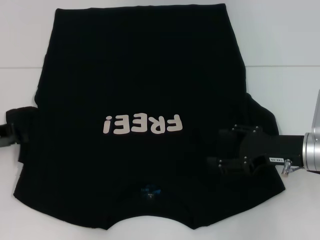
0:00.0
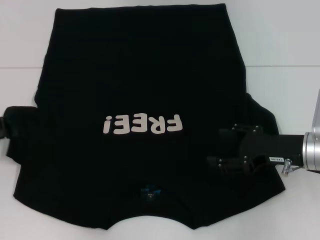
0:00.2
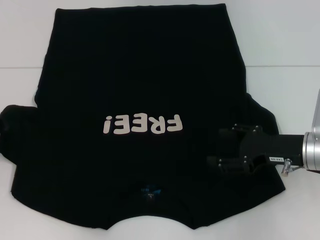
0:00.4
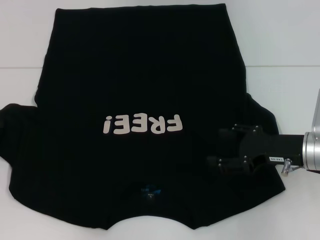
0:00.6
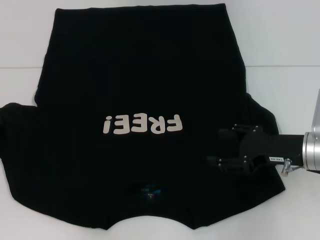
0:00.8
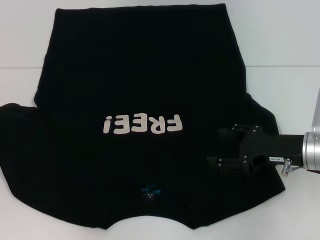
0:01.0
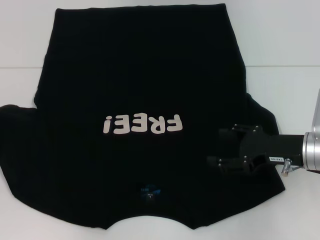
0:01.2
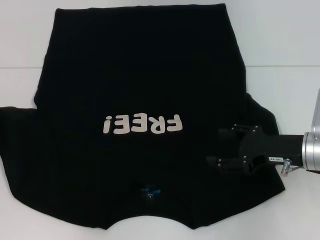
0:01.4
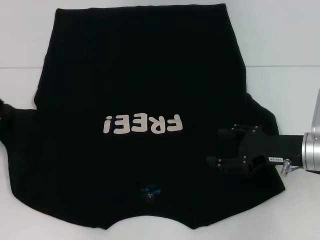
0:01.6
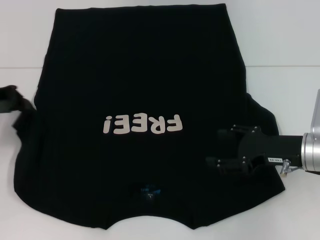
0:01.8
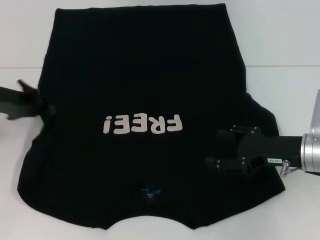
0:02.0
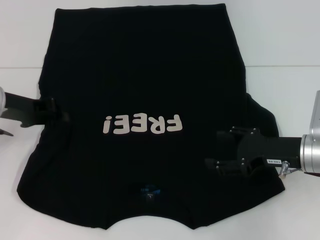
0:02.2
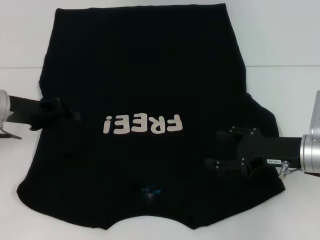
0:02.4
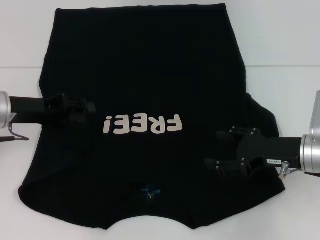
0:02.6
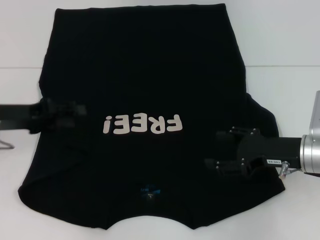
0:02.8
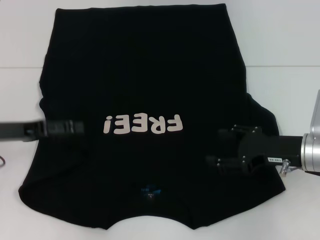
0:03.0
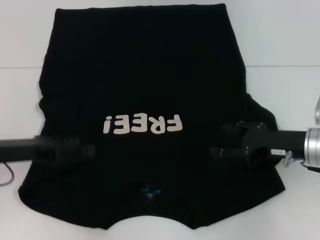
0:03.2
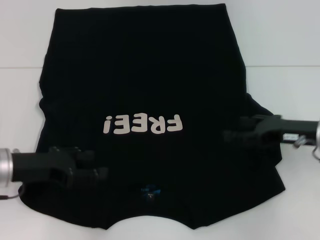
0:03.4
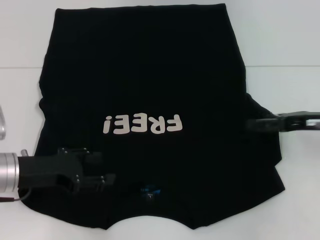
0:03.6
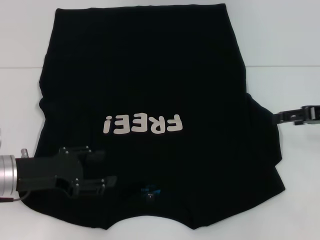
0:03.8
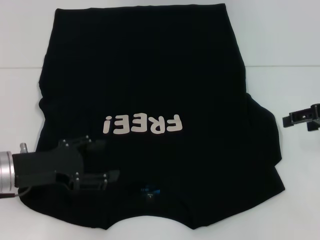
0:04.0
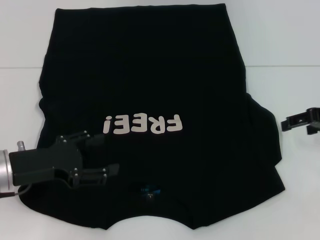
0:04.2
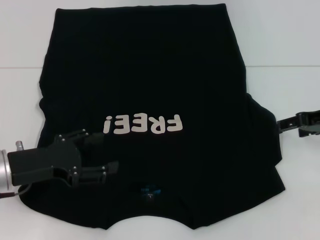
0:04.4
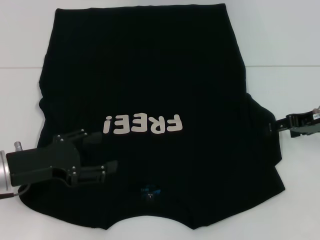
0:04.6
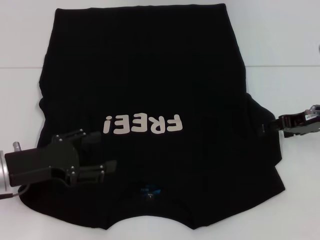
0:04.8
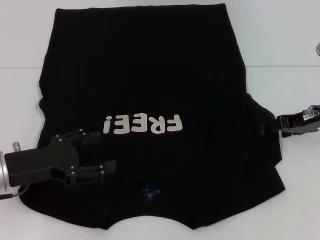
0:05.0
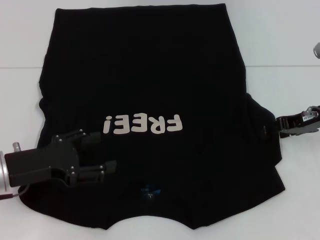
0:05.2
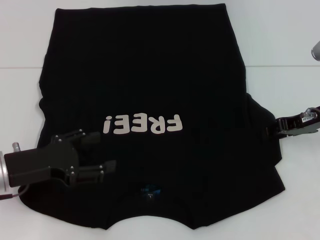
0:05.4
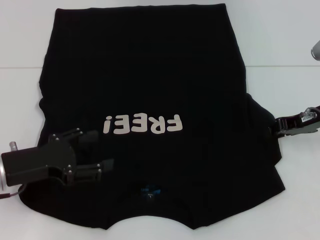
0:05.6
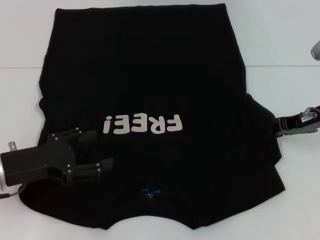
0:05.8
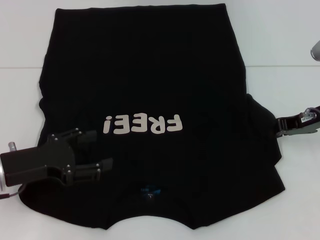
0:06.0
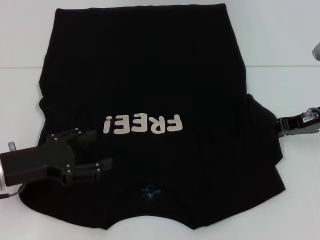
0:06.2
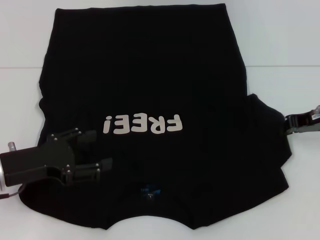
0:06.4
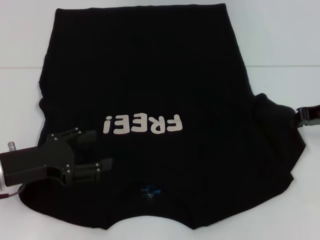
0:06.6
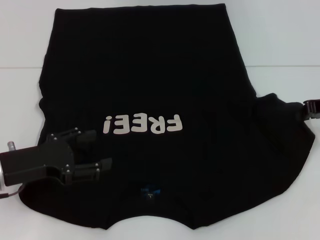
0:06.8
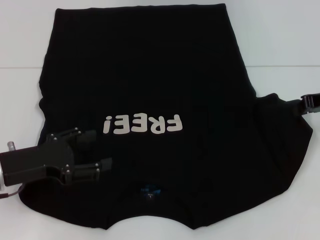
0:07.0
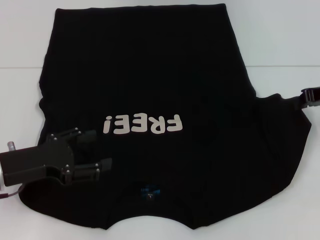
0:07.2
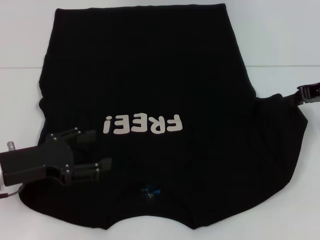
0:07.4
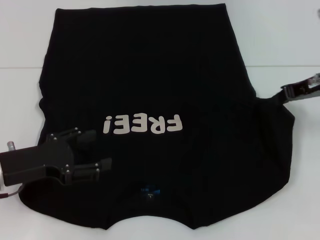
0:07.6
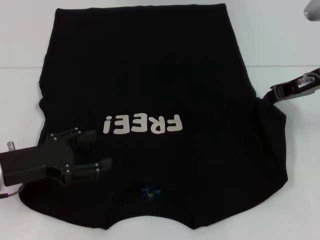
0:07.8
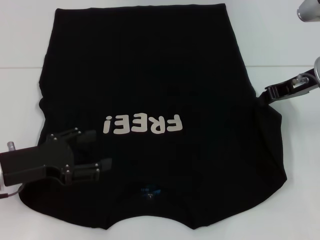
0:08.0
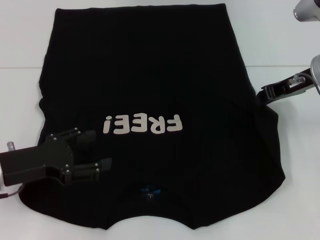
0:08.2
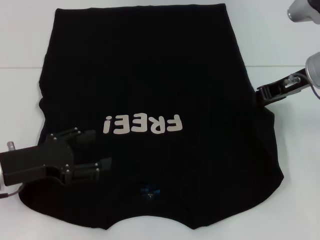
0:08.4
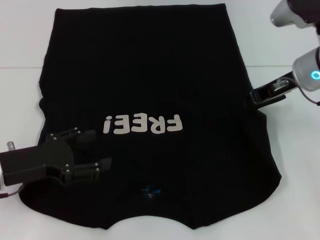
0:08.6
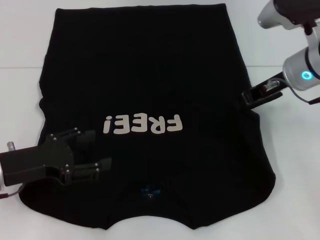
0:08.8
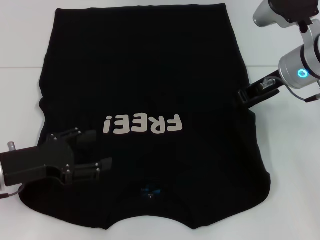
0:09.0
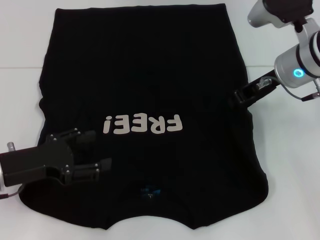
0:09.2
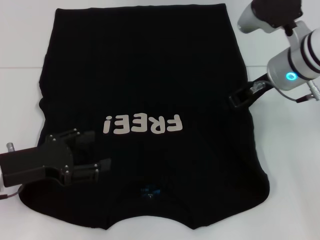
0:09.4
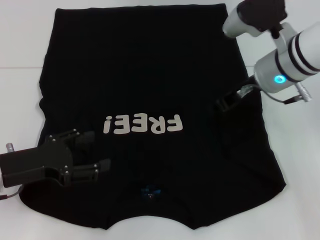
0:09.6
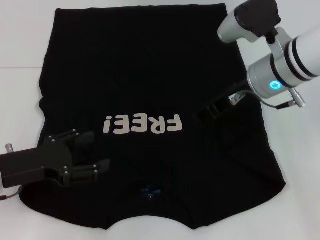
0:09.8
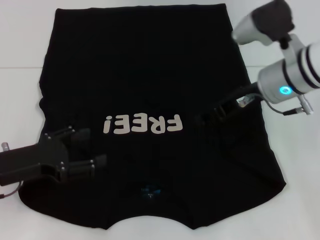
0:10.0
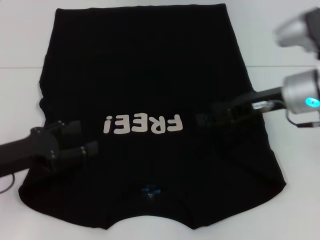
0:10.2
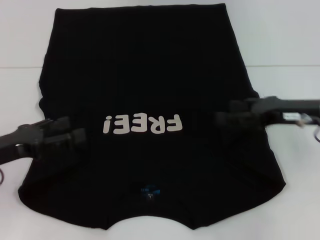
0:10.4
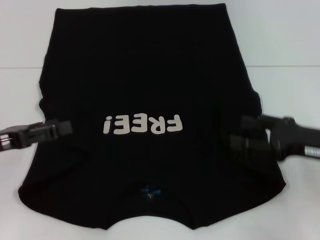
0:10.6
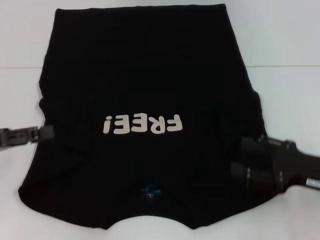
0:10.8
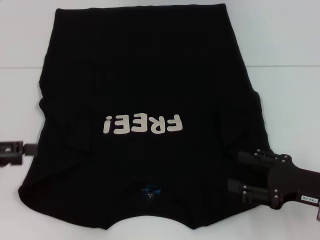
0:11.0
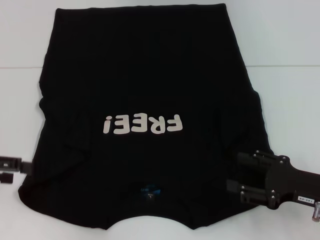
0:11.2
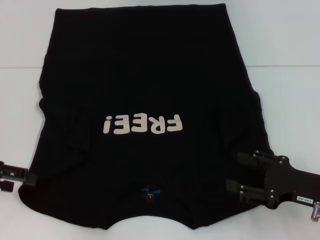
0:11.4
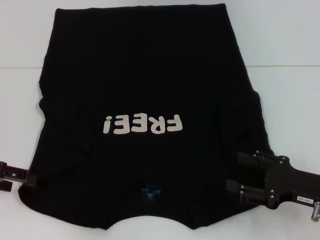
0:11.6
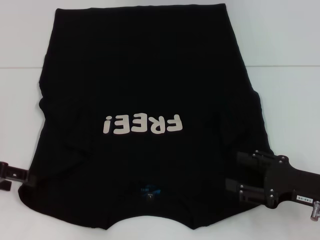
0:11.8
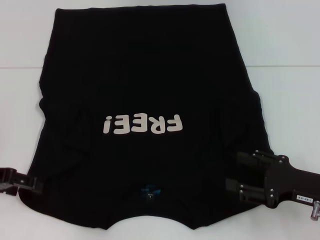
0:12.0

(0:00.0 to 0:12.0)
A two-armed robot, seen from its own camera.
Step, 0:00.0 - 0:05.0: Fold the bottom left sleeve with your left hand.
Step, 0:05.2 - 0:10.4: Fold the bottom right sleeve with your right hand.
0:00.0 - 0:01.6: The left gripper goes about 5 cm upward.
0:01.6 - 0:03.0: The left gripper heads to the right, covering roughly 5 cm, and opens.
0:03.0 - 0:04.4: The left gripper heads backward, covering roughly 5 cm; the right gripper moves to the right, upward and forward, roughly 10 cm.
0:04.4 - 0:06.0: The right gripper closes.
0:06.0 - 0:07.6: The right gripper is displaced upward by some 5 cm.
0:07.6 - 0:09.0: The right gripper shifts approximately 10 cm to the left.
0:09.0 - 0:10.4: The right gripper goes approximately 10 cm backward and to the right, and opens its fingers.
0:10.4 - 0:12.0: The left gripper moves roughly 5 cm, while the right gripper heads backward and downward, covering approximately 10 cm.

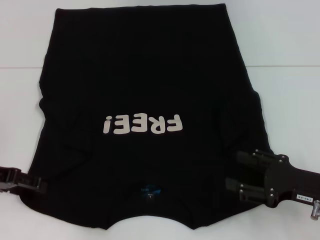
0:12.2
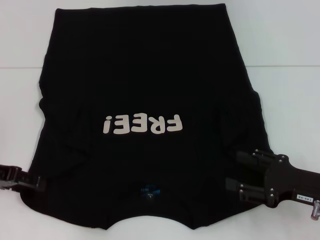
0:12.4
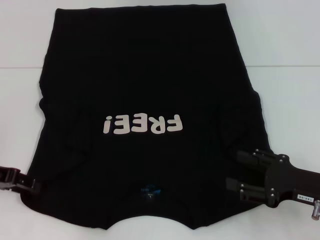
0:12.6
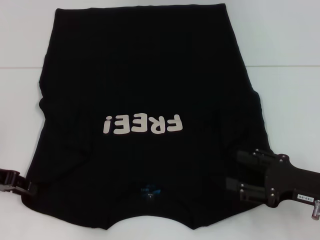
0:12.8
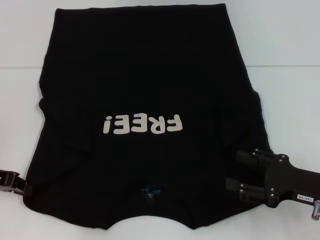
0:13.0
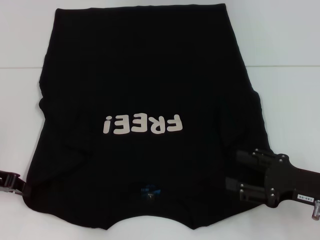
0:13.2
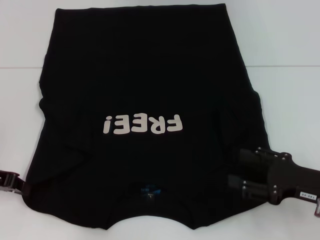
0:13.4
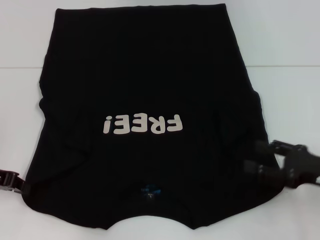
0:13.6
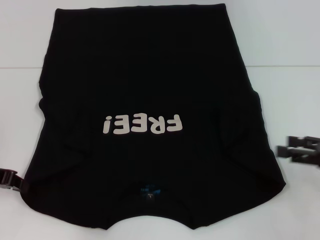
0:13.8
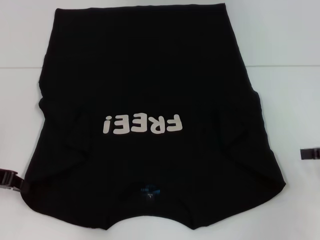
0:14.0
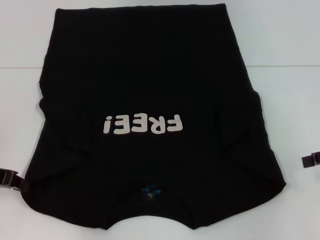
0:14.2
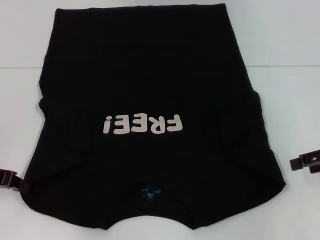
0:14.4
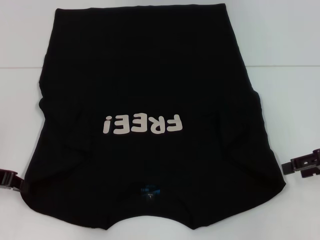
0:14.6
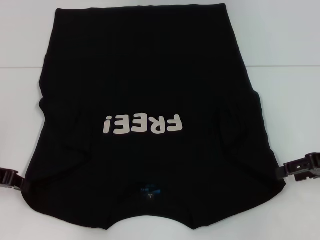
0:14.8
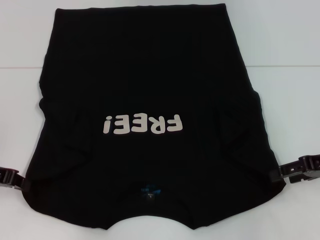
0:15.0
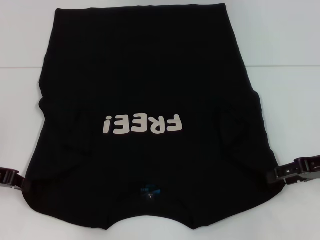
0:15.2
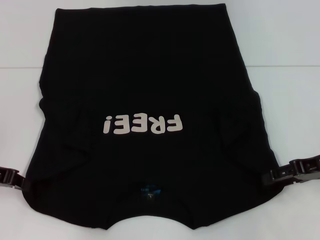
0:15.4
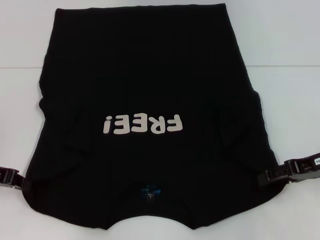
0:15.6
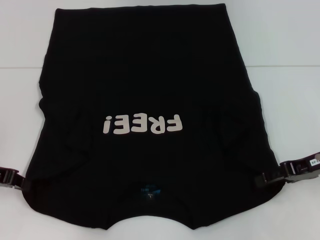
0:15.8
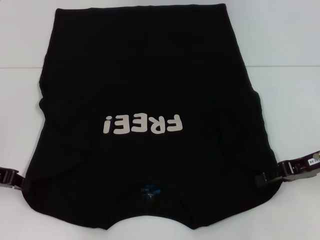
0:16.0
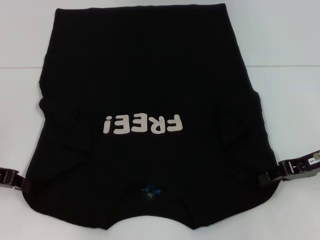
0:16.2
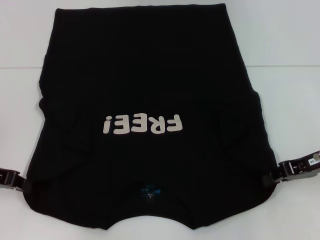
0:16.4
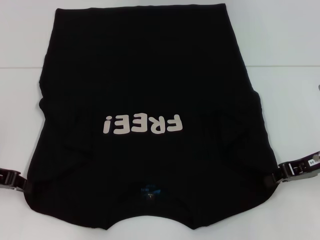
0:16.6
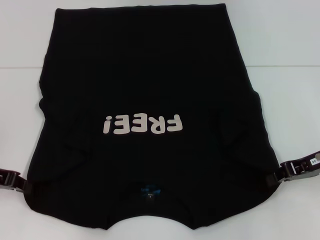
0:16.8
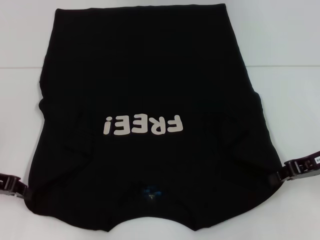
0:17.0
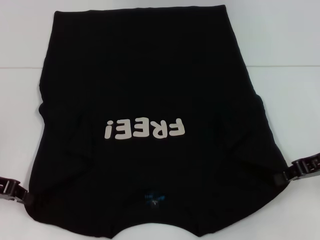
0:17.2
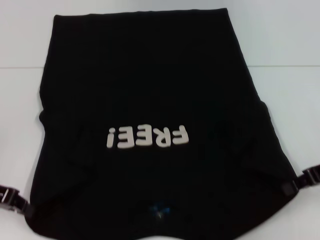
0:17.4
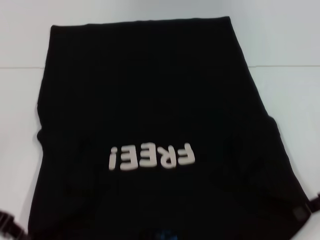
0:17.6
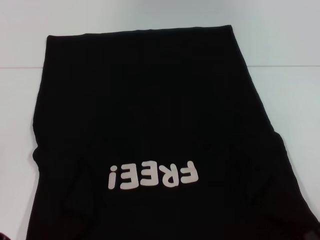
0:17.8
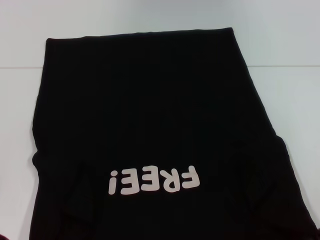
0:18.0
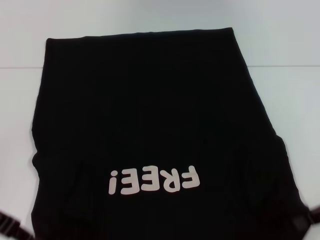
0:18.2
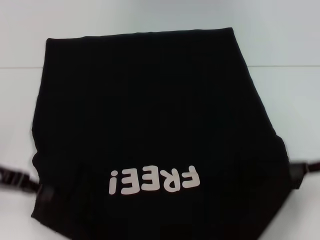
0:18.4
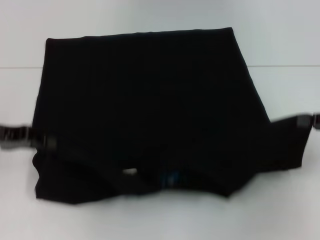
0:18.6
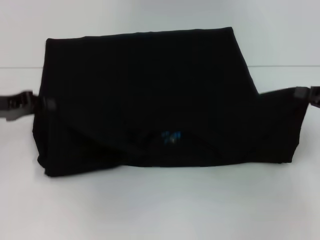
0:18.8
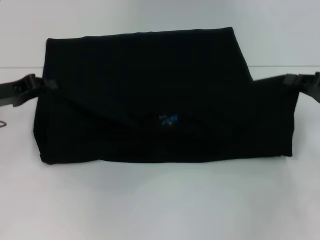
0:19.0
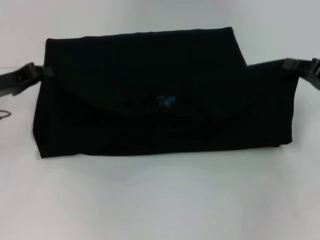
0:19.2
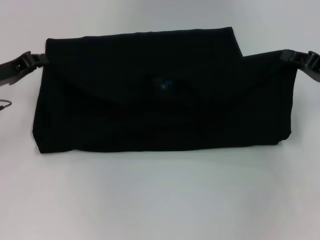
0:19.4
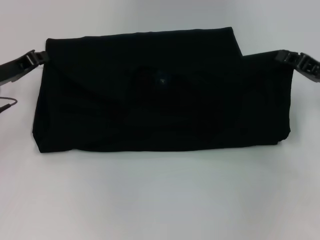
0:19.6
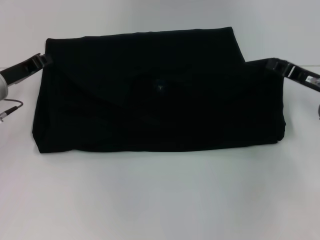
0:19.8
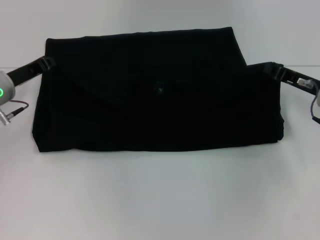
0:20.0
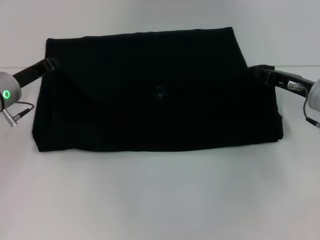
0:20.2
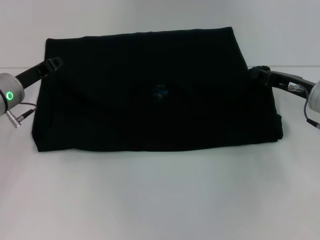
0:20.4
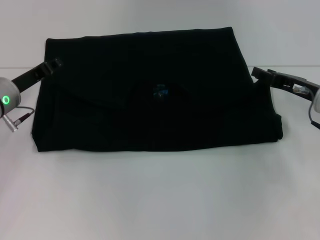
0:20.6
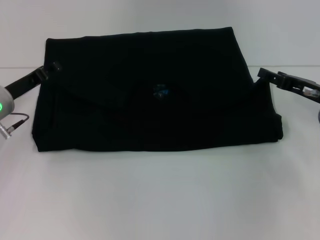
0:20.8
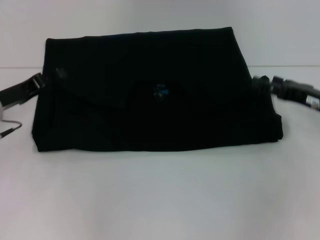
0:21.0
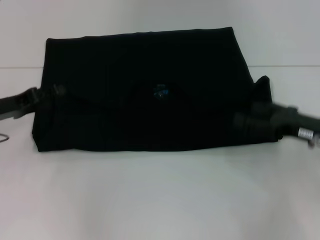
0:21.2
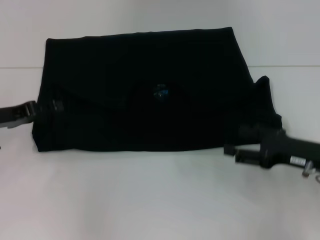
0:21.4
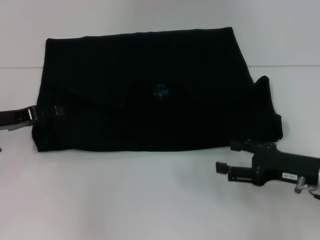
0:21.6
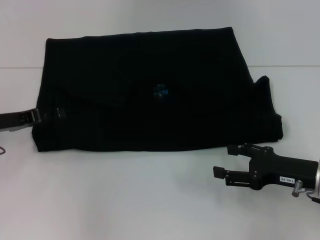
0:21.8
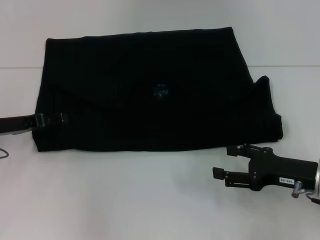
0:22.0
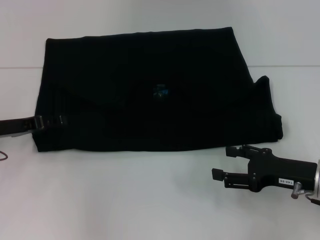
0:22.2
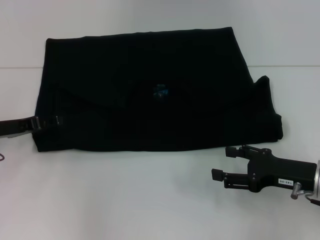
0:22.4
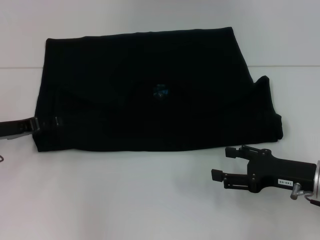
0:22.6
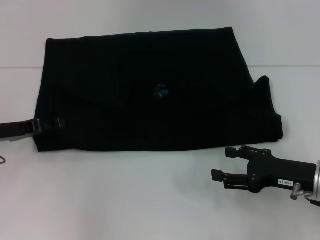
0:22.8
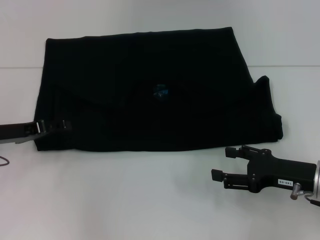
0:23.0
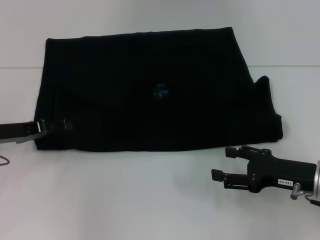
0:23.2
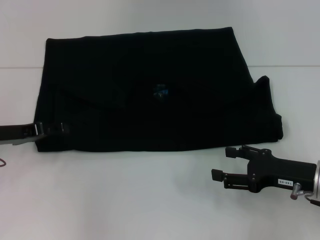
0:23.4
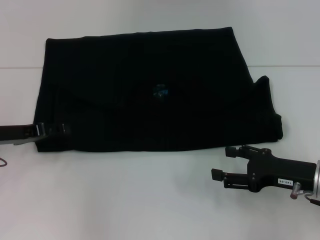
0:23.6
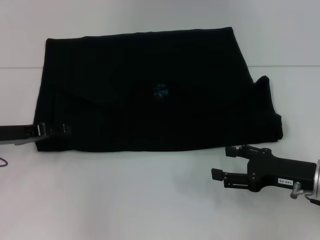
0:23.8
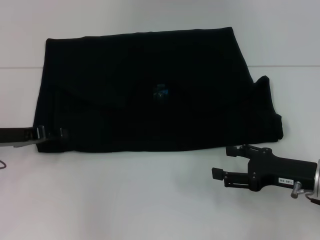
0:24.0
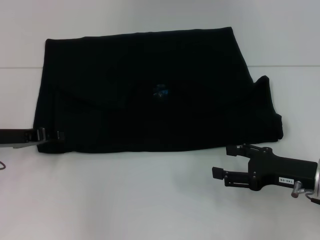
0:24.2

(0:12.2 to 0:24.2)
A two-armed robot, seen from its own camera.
Step, 0:12.2 - 0:16.8: Grab the bottom right corner with your right hand.
Step, 0:17.0 - 0:20.8: Fold the clothes with your left hand.
Step, 0:17.0 - 0:20.8: Fold the clothes with your right hand.
0:12.2 - 0:13.8: The right gripper heads to the right and upward, covering approximately 10 cm. Meanwhile the left gripper closes up.
0:13.8 - 0:15.2: The right gripper heads forward, covering roughly 5 cm.
0:15.2 - 0:16.6: The right gripper closes.
0:16.6 - 0:18.2: The right gripper moves backward, approximately 5 cm.
0:18.2 - 0:19.8: The two grippers go approximately 10 cm forward.
0:19.8 - 0:21.2: The left gripper changes place by about 5 cm, and opens up, while the right gripper is displaced backward by some 5 cm, and opens.
0:21.2 - 0:22.6: The right gripper moves approximately 5 cm.
0:22.6 - 0:24.2: The grippers move only a little.
